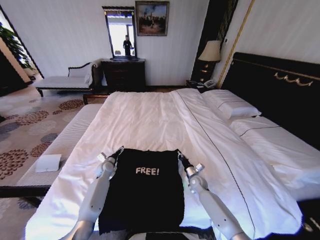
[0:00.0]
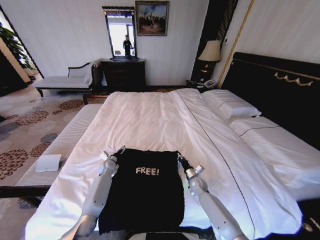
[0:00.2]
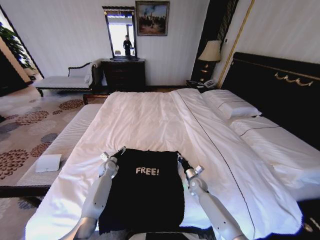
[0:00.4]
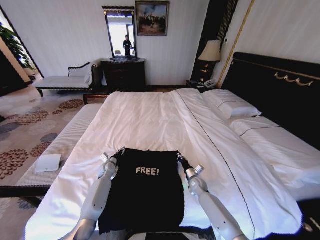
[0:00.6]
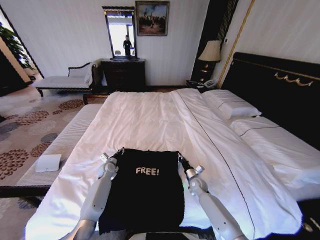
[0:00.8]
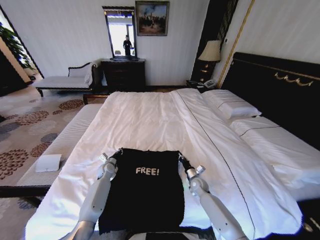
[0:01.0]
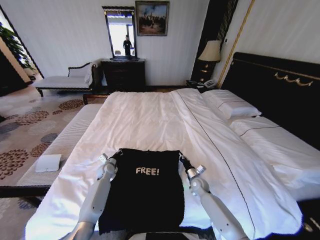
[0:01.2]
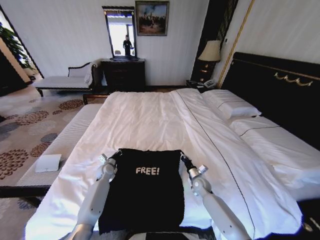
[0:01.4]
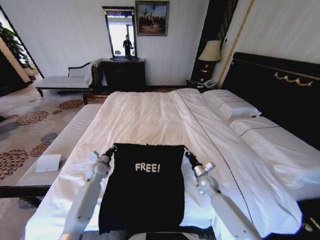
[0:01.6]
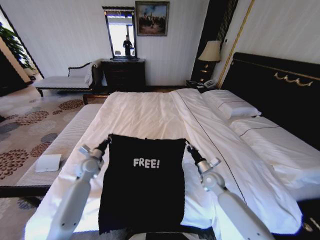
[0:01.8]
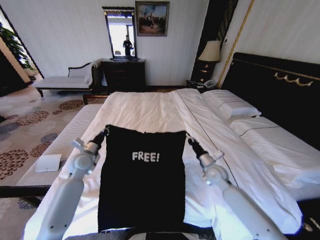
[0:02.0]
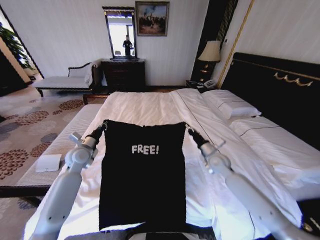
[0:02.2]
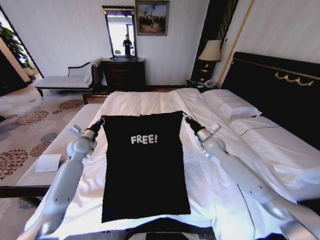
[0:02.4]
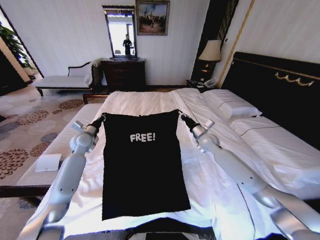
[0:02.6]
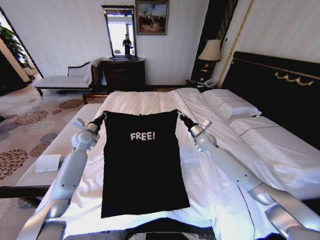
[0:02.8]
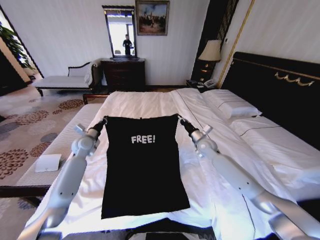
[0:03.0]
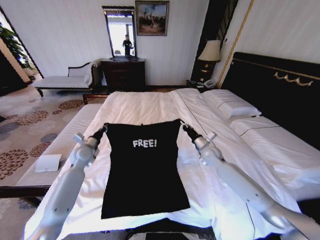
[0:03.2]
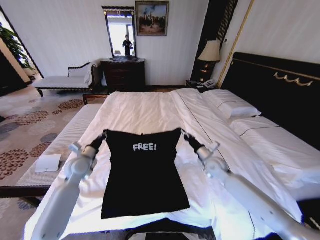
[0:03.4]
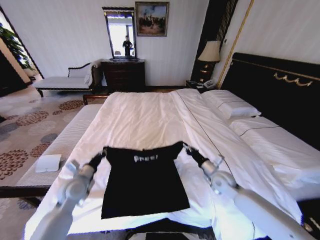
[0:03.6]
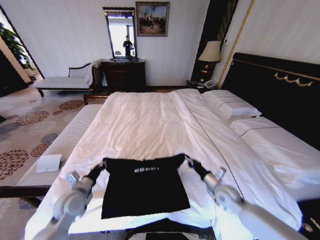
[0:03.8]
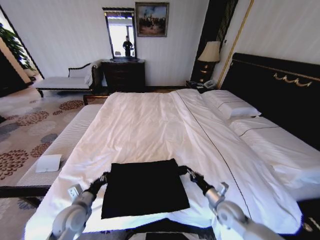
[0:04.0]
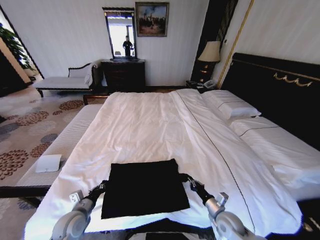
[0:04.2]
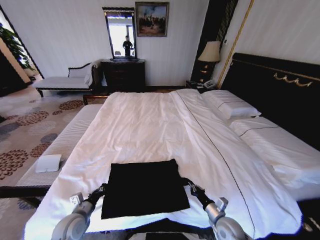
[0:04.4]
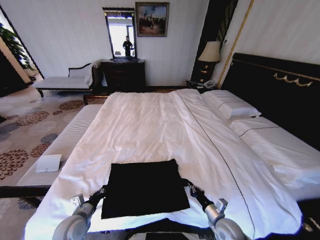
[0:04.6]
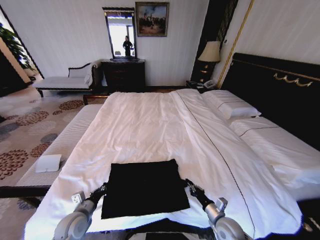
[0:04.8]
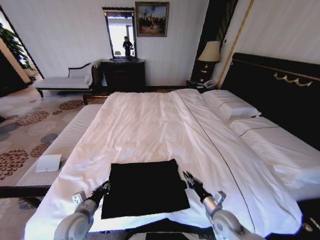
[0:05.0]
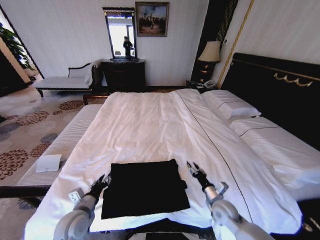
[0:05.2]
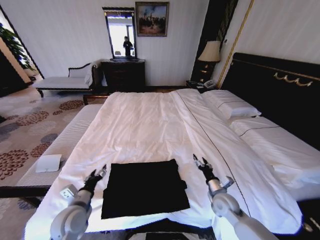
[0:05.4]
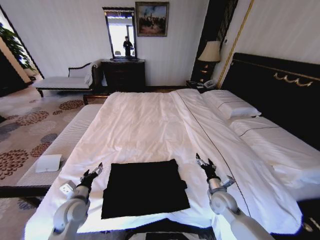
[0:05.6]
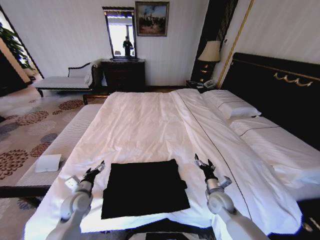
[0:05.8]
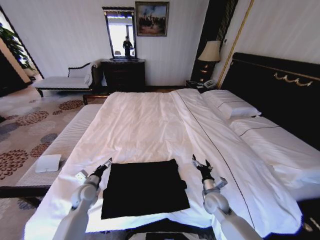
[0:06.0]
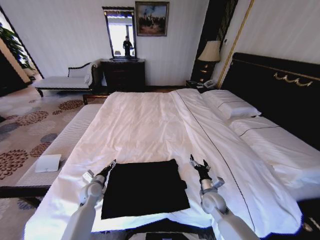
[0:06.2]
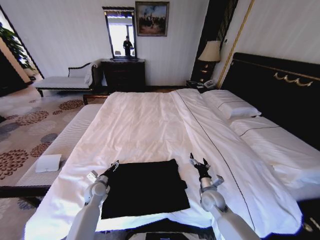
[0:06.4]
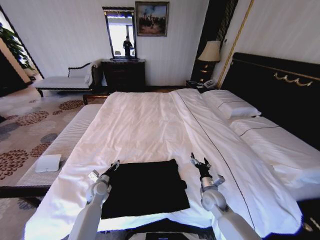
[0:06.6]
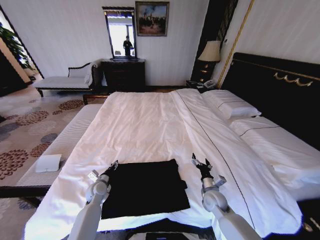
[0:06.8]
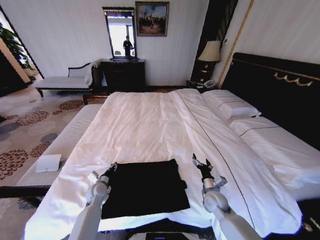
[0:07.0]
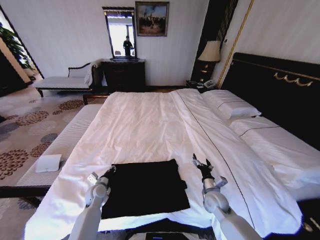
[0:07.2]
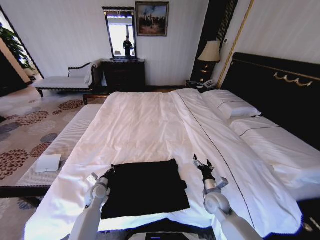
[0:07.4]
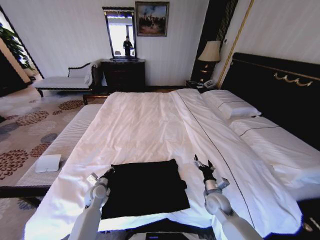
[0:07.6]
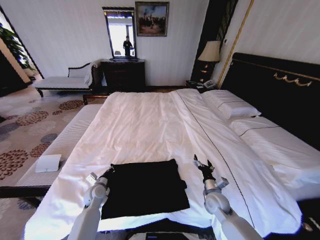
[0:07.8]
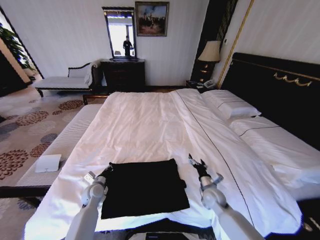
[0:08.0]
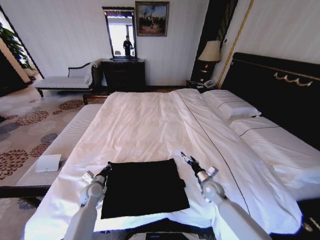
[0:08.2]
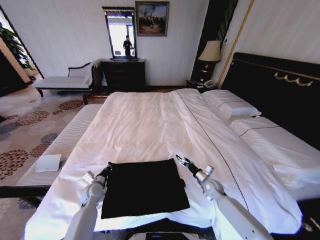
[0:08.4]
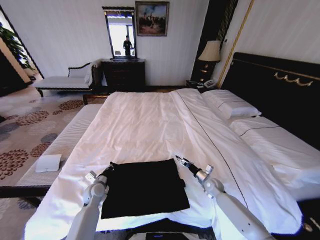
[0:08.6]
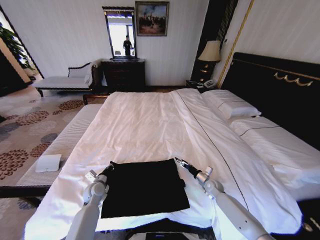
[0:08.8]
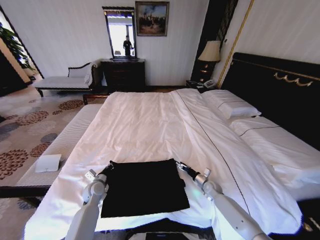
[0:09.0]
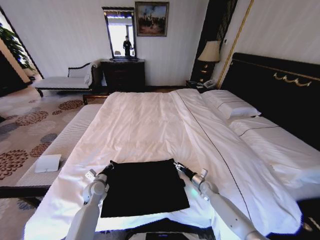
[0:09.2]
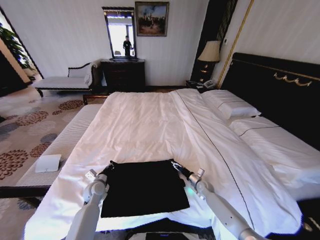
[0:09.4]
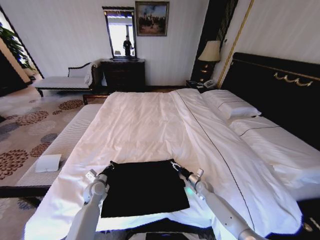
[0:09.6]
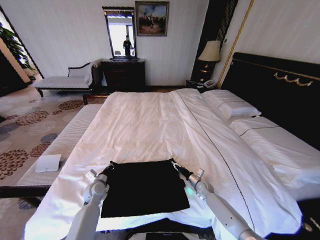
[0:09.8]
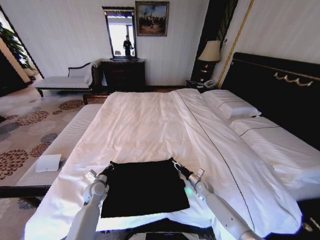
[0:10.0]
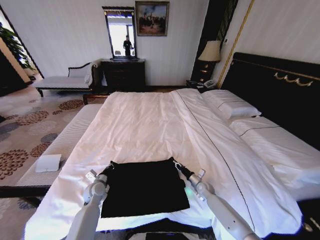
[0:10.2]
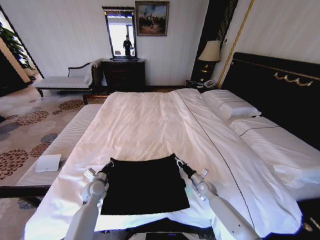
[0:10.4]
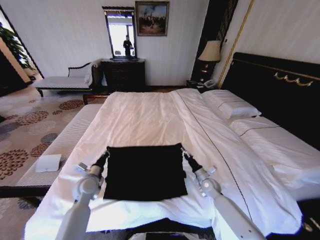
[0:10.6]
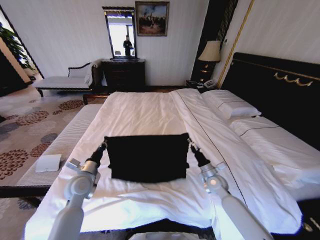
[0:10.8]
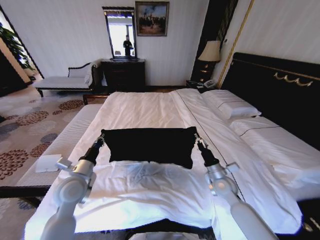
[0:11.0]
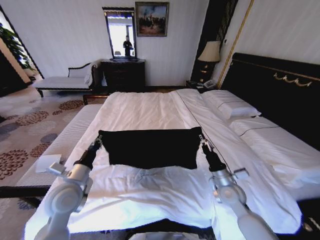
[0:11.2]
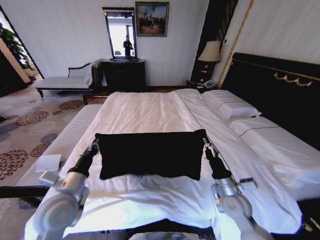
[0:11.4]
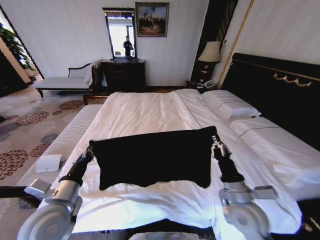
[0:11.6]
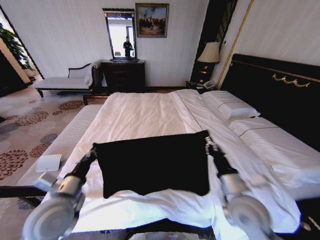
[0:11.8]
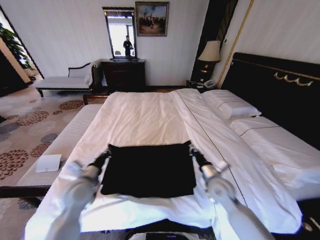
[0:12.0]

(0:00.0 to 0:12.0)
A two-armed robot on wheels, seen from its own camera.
Task of the whole recording: Fold the clothes on the bed.
0:00.0 - 0:01.6: The left gripper changes place by approximately 5 cm, and closes its fingers, while the right gripper heads upward, covering roughly 5 cm.
0:01.6 - 0:03.0: The right gripper heads upward and forward, covering roughly 20 cm, while the left gripper is displaced upward by about 15 cm.
0:03.0 - 0:04.4: Both grippers move backward and downward, some 35 cm.
0:04.4 - 0:06.0: The two grippers go some 10 cm forward. The right gripper opens. The left gripper opens its fingers.
0:06.0 - 0:07.6: The left gripper heads downward, covering about 5 cm, and closes.
0:07.6 - 0:09.0: The right gripper is displaced downward, forward and to the right by about 15 cm.
0:09.0 - 0:10.4: The right gripper closes its fingers.
0:10.4 - 0:12.0: Both grippers move upward, approximately 15 cm.

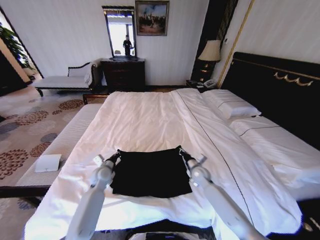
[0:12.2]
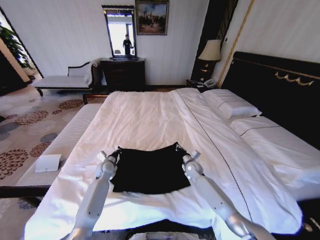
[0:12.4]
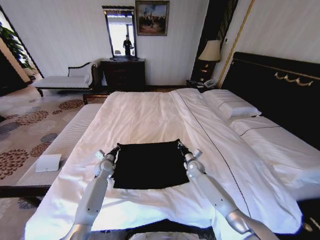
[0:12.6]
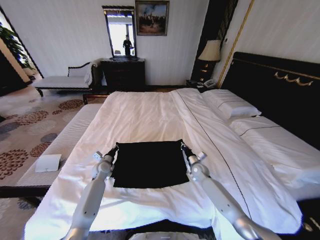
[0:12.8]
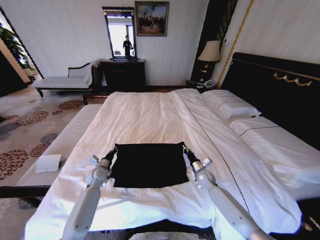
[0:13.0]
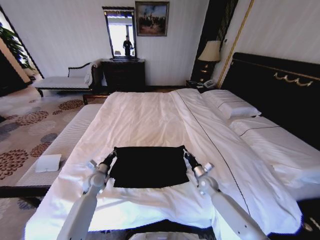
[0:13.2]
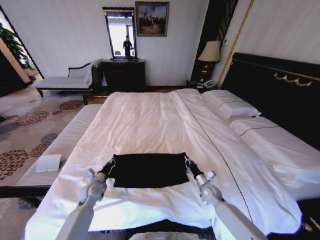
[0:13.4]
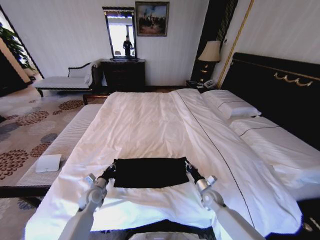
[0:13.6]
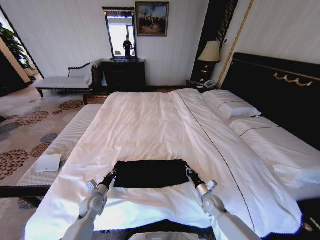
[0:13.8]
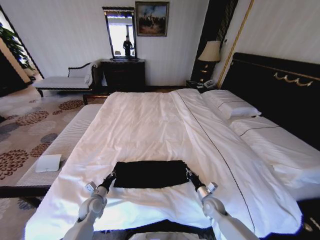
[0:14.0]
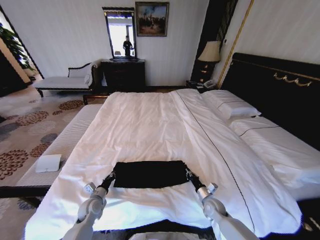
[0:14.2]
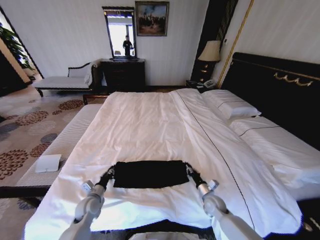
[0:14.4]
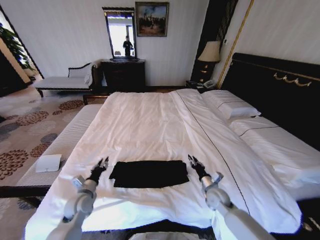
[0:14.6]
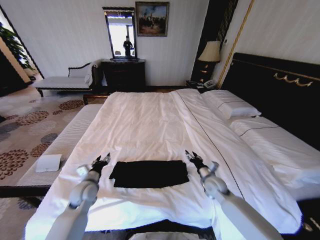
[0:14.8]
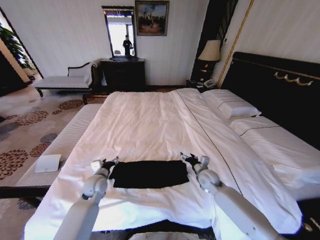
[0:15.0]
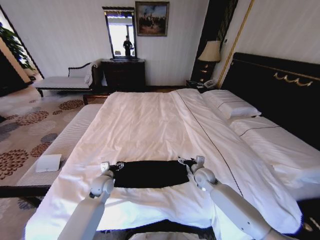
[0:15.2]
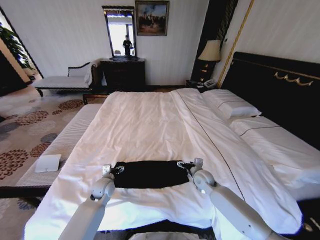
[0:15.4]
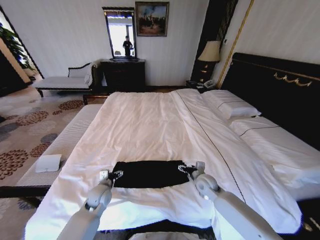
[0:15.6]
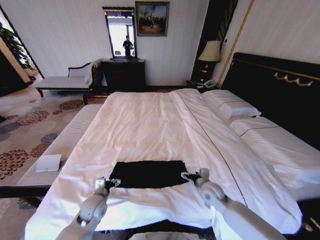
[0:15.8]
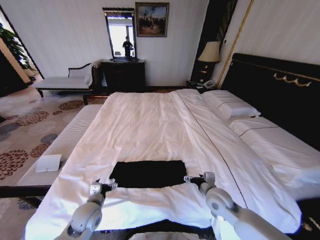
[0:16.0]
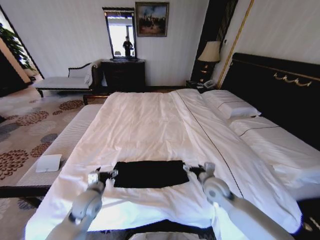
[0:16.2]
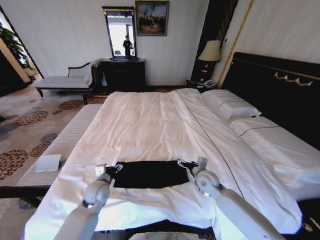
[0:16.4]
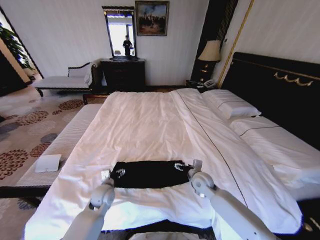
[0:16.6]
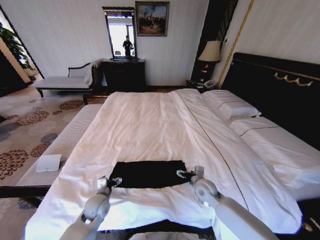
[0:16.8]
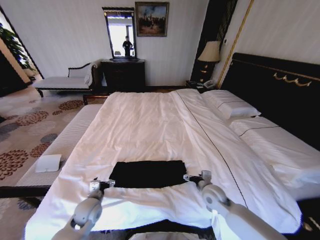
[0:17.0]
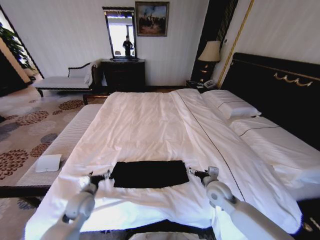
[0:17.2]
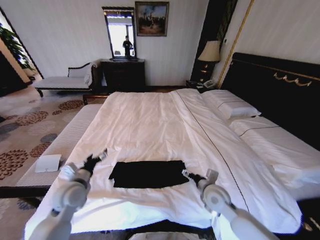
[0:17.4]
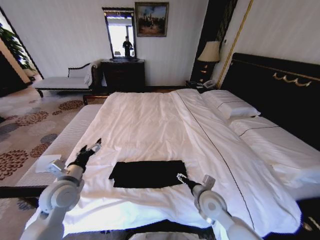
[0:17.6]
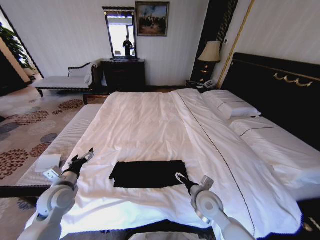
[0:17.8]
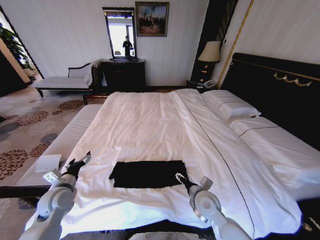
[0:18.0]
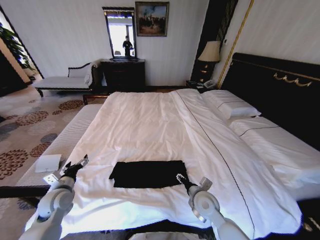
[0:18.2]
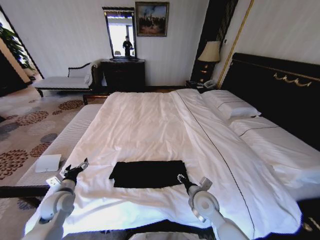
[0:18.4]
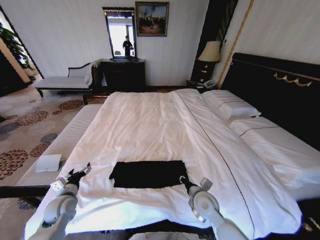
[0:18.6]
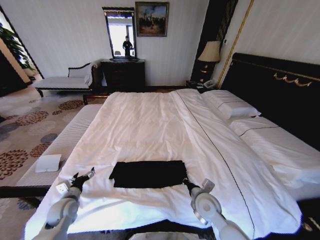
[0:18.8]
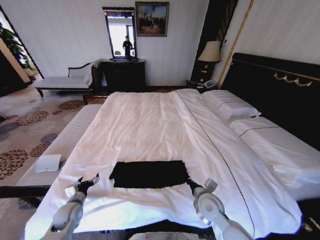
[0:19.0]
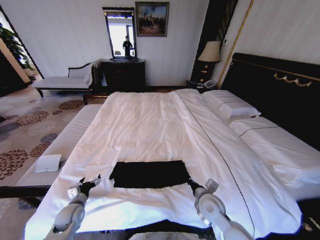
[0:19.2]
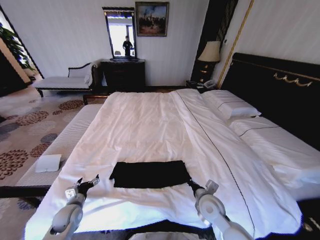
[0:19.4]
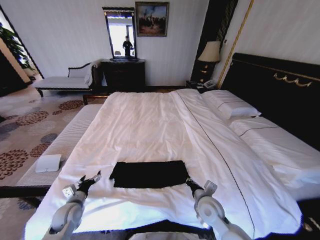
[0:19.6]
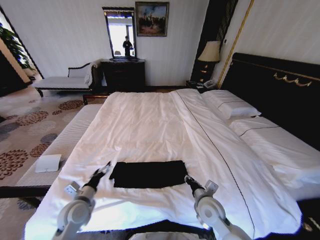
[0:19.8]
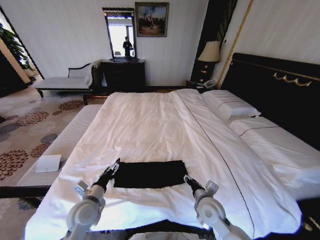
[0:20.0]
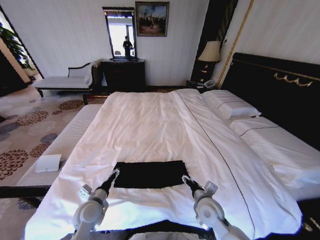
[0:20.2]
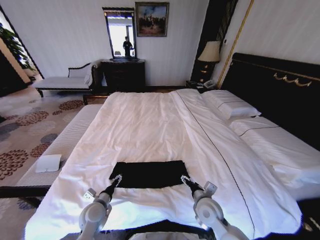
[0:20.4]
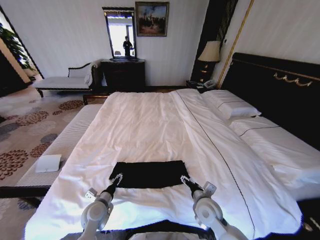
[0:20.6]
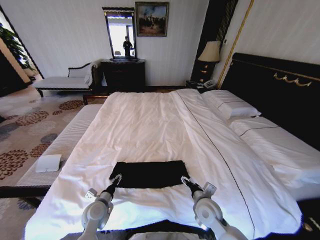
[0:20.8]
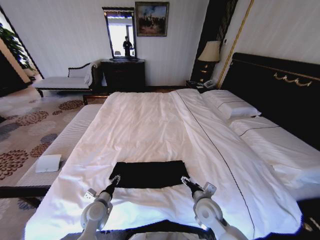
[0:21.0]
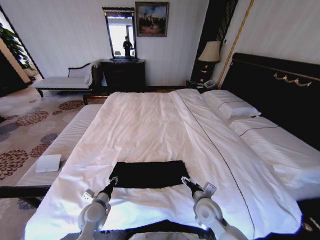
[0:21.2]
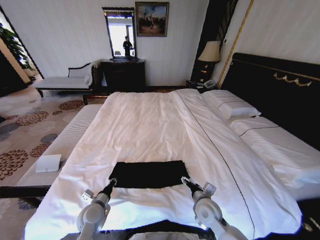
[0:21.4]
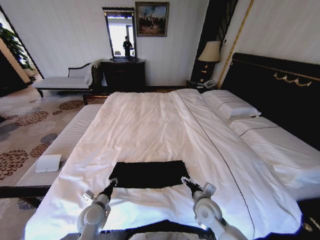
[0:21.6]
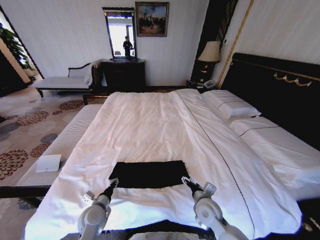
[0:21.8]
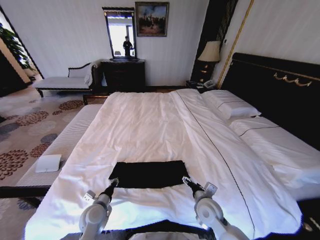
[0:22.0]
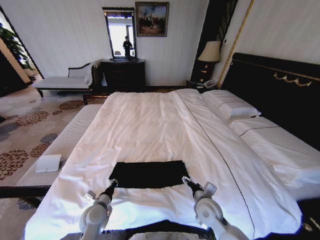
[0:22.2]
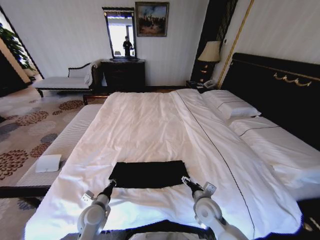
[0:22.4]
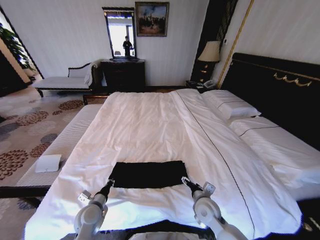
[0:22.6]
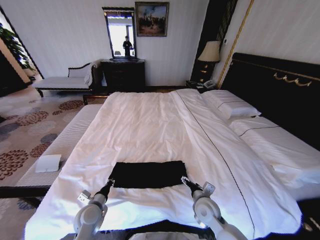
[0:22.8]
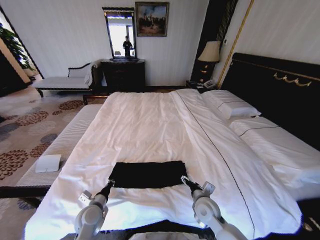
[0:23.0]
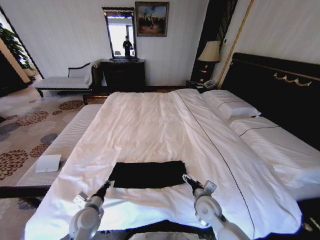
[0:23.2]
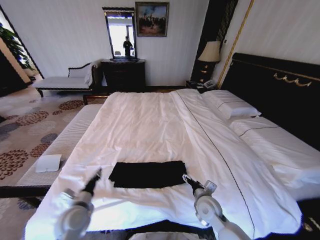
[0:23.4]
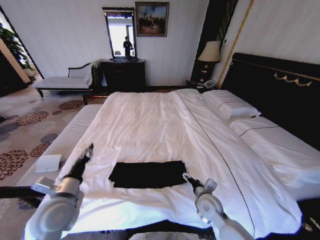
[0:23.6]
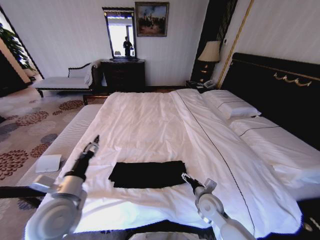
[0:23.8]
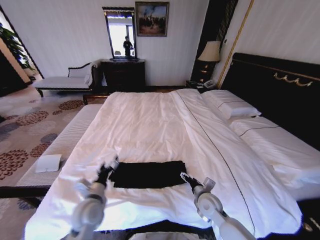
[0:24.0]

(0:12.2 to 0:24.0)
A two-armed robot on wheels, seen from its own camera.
Task of the whole recording: Fold the clothes on the bed.
0:12.2 - 0:13.6: The right gripper heads backward, downward and to the right, covering roughly 15 cm. Meanwhile the left gripper is displaced backward and downward by about 10 cm.
0:13.6 - 0:15.2: The left gripper goes about 10 cm upward and to the right, and opens its fingers; the right gripper heads upward, forward and to the left, covering approximately 15 cm, and opens up.
0:15.2 - 0:16.6: The right gripper goes backward and returns, roughly 10 cm each way.
0:16.6 - 0:18.2: The right gripper is displaced backward by some 10 cm, while the left gripper shifts about 15 cm to the left and upward.
0:18.2 - 0:19.6: The left gripper is displaced downward by about 5 cm, while the right gripper closes up.
0:19.6 - 0:21.0: The right gripper opens up. Meanwhile the left gripper moves to the right, roughly 10 cm, and closes its fingers.
0:21.0 - 0:22.6: The left gripper closes.
0:22.6 - 0:24.0: The left gripper goes roughly 10 cm upward, and opens.
